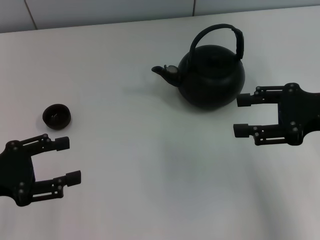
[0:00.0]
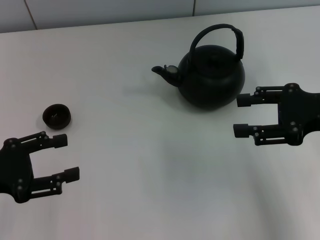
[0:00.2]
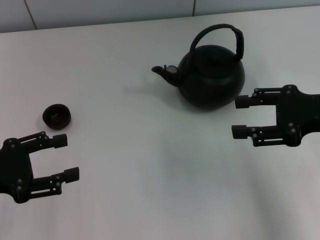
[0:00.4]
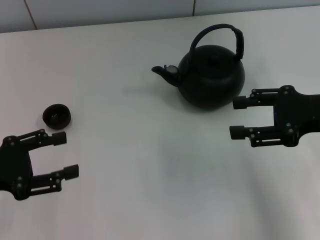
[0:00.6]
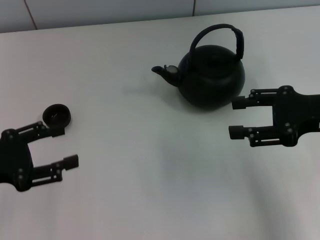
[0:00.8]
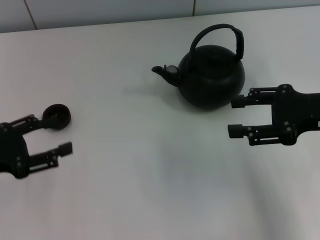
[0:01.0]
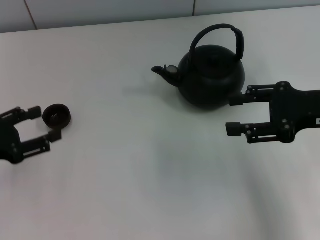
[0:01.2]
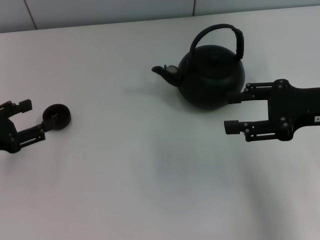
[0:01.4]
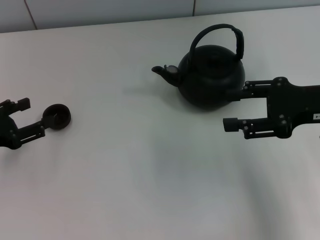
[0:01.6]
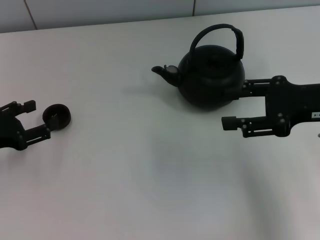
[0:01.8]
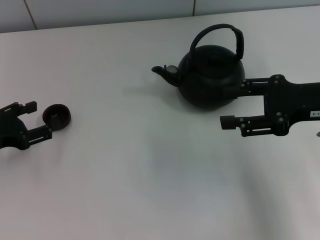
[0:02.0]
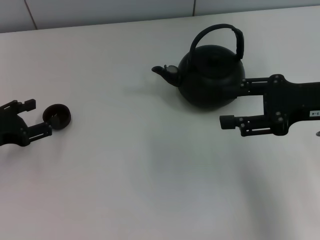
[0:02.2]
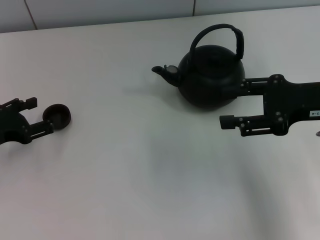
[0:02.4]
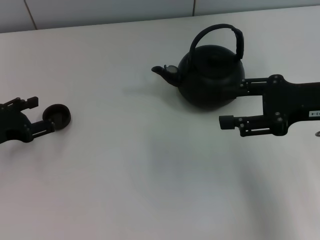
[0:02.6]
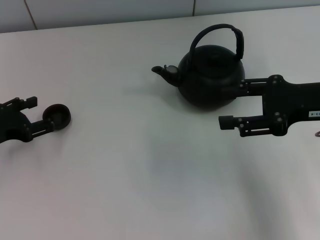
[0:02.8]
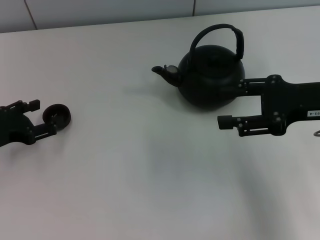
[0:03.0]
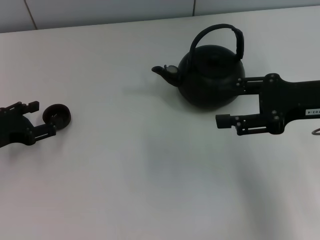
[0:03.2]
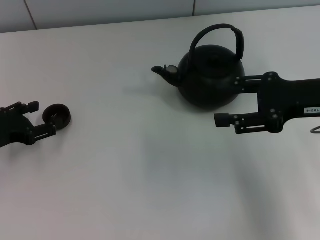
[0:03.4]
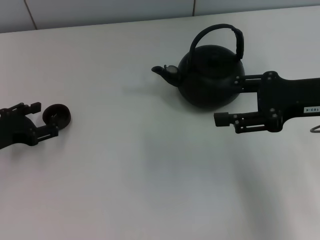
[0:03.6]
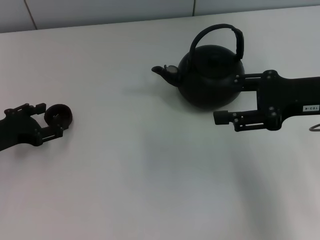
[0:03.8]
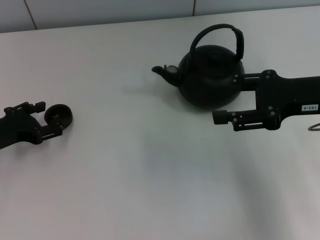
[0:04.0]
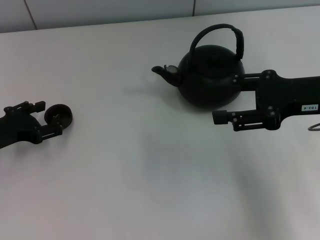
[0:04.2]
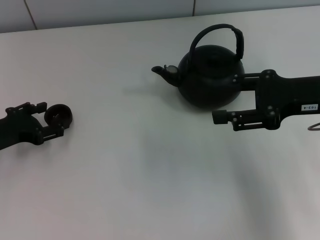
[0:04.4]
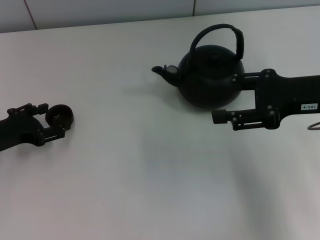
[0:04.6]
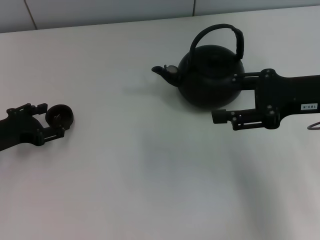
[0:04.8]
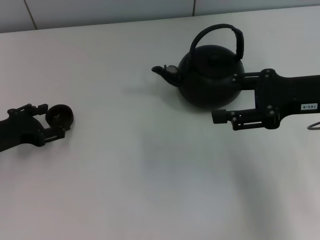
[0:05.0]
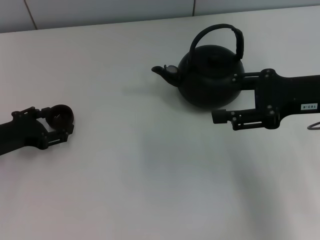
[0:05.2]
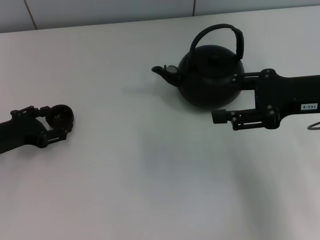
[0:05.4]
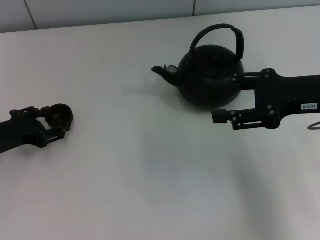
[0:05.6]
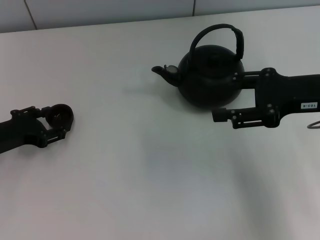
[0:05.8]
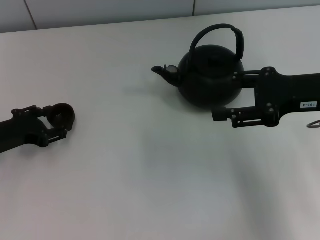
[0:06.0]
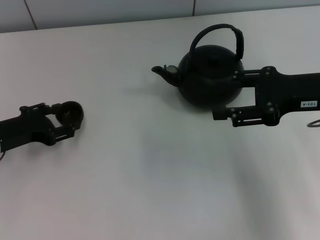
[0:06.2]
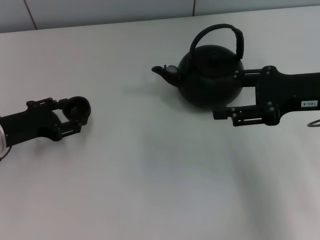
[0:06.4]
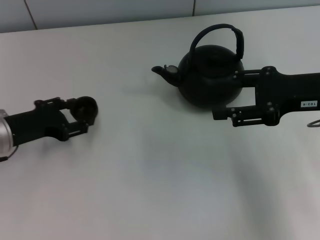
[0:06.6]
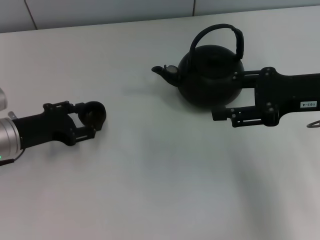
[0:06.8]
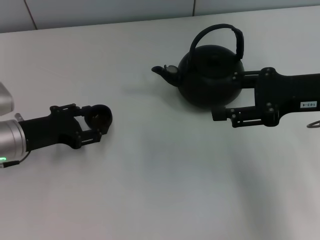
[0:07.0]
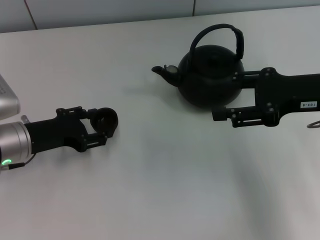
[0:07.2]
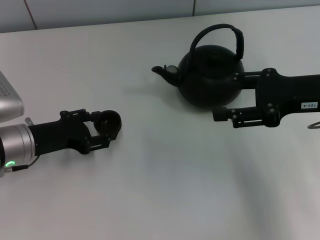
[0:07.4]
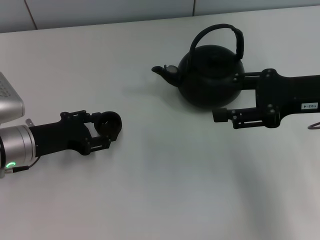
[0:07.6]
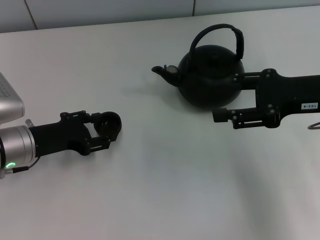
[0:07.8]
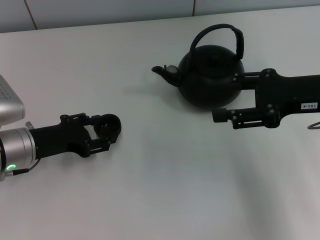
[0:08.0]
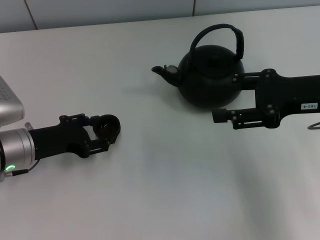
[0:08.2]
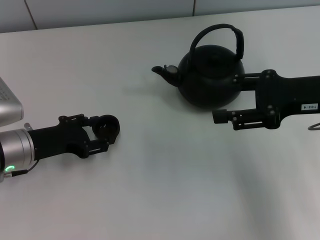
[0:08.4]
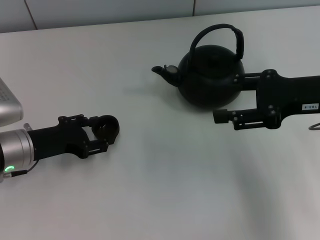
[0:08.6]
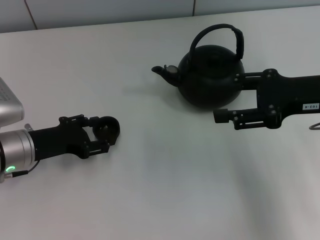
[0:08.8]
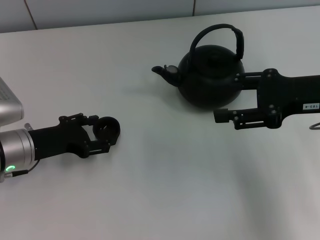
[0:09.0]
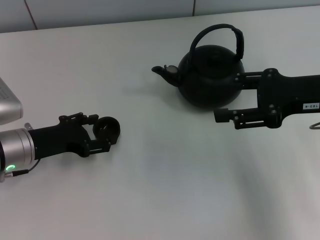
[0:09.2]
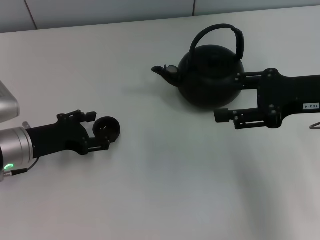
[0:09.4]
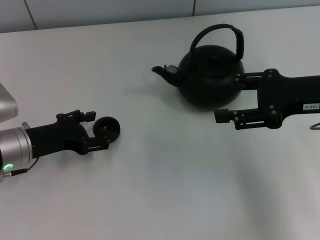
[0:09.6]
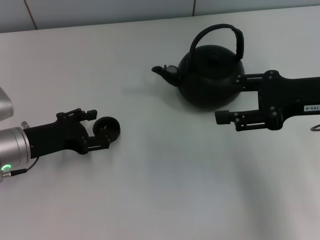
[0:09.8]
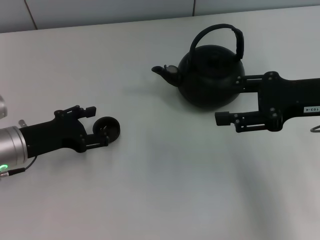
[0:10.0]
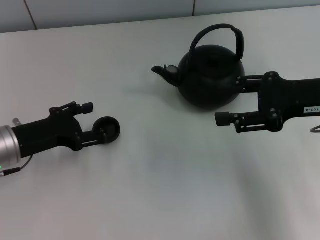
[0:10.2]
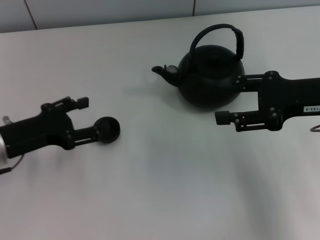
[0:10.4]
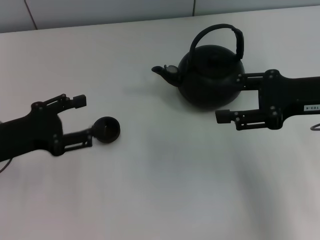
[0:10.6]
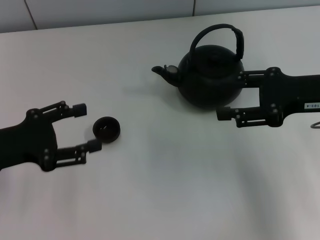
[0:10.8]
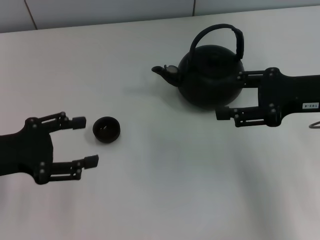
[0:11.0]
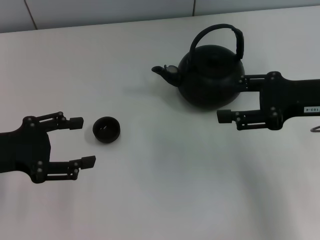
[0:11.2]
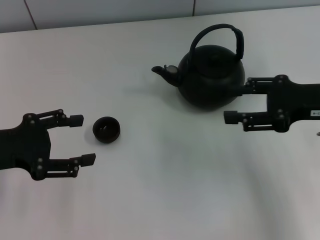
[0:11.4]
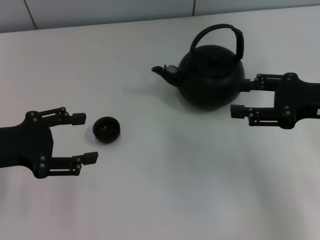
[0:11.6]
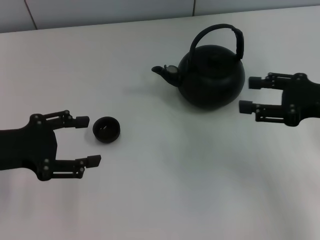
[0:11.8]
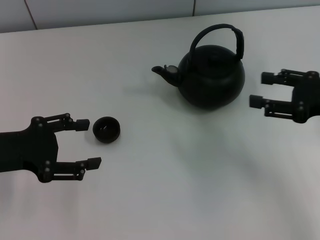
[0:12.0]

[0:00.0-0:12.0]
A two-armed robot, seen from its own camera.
Task of the whole recording: Grasp the handle of the teapot with one hand and pour tea into the teacup.
Step, 0:00.0 to 0:06.0: Pick up the teacup with the left gripper.
Step, 0:06.4 to 0:10.4: Place the teacup in the center of view with the left gripper.
0:00.0 to 0:01.6: The left gripper changes place by some 5 cm.
0:01.6 to 0:03.0: The grippers move only a little.
0:03.0 to 0:04.4: Both grippers stay put.
0:04.4 to 0:06.0: Neither gripper changes place.
0:06.0 to 0:07.6: The left gripper goes approximately 5 cm to the right.
0:07.6 to 0:09.0: The left gripper opens its fingers.
0:09.0 to 0:10.4: The grippers move only a little.
0:10.4 to 0:12.0: The right gripper ends up some 5 cm from where it was. The left gripper ends up some 5 cm from where it was.

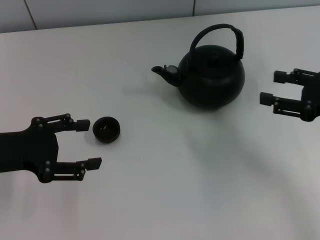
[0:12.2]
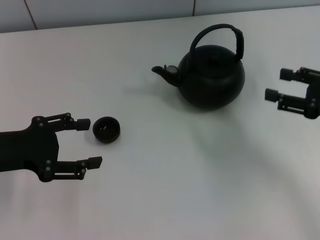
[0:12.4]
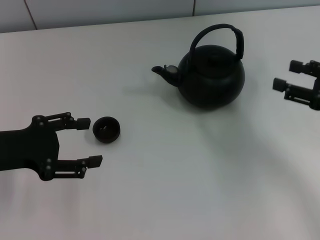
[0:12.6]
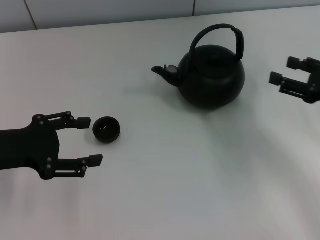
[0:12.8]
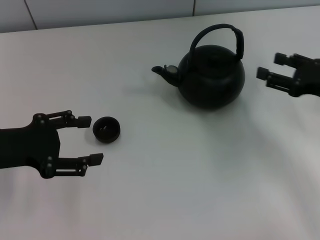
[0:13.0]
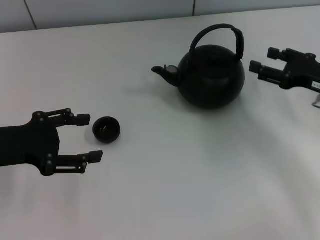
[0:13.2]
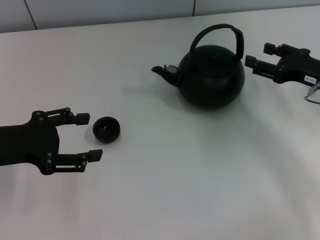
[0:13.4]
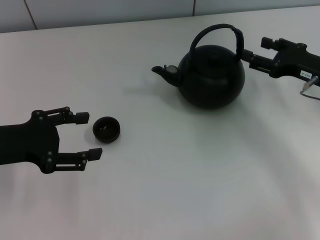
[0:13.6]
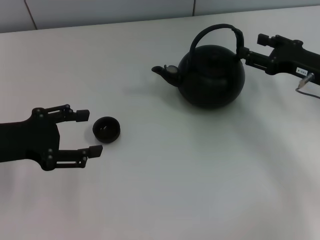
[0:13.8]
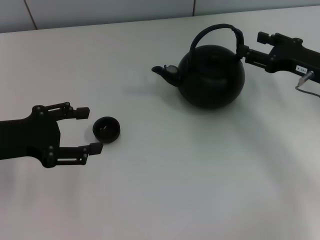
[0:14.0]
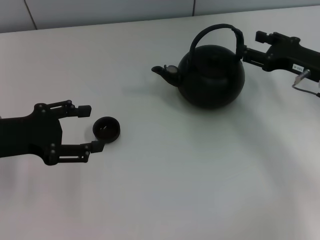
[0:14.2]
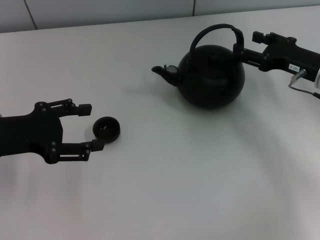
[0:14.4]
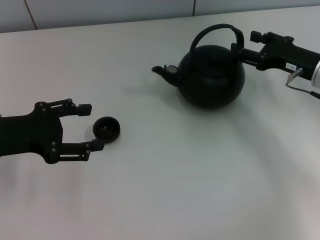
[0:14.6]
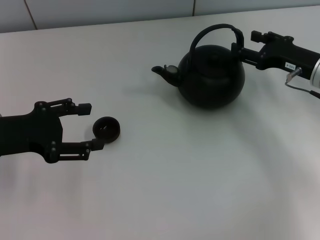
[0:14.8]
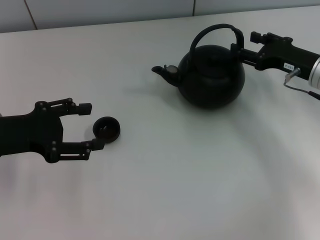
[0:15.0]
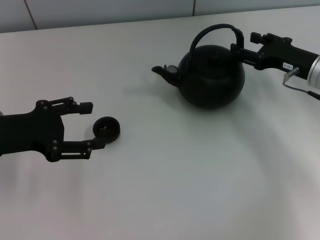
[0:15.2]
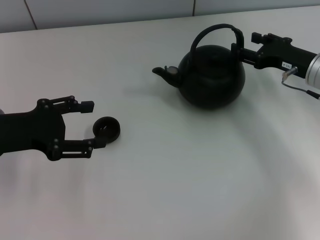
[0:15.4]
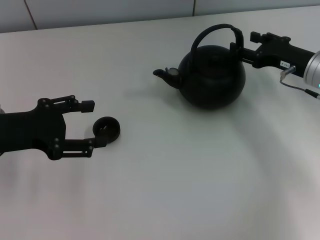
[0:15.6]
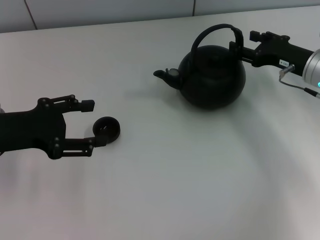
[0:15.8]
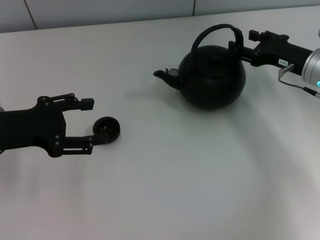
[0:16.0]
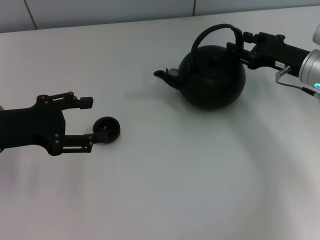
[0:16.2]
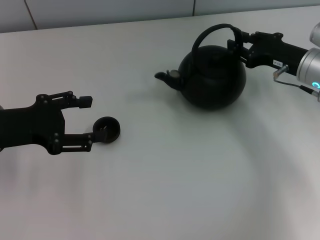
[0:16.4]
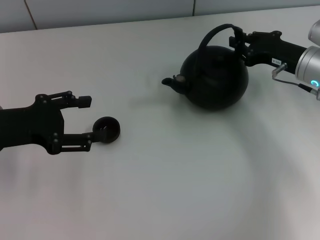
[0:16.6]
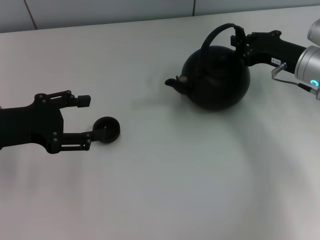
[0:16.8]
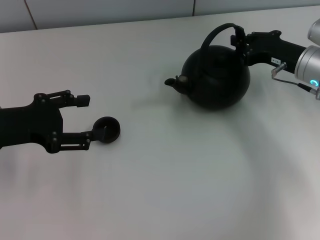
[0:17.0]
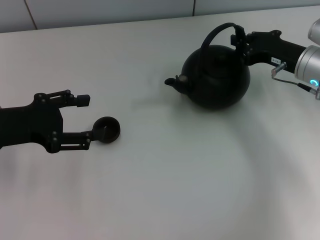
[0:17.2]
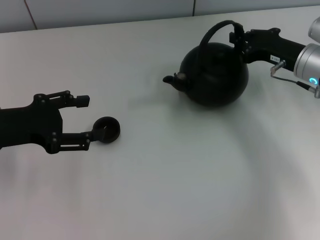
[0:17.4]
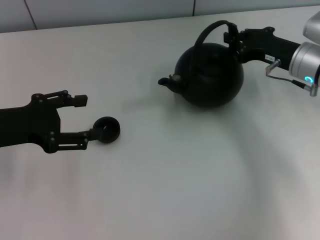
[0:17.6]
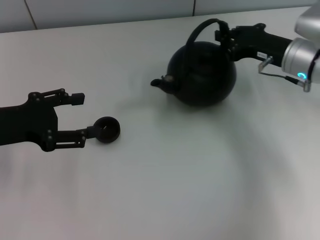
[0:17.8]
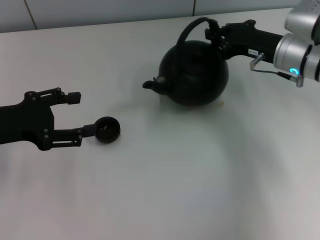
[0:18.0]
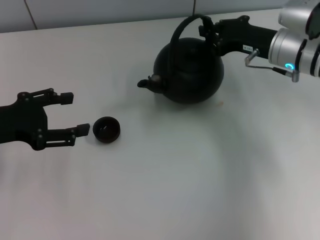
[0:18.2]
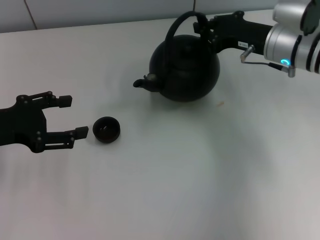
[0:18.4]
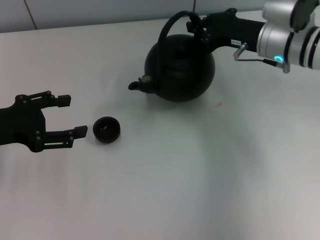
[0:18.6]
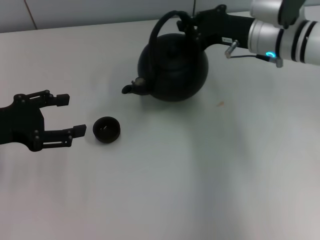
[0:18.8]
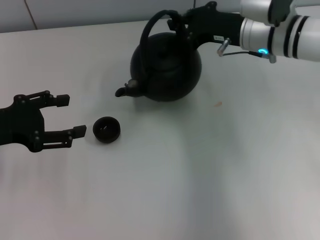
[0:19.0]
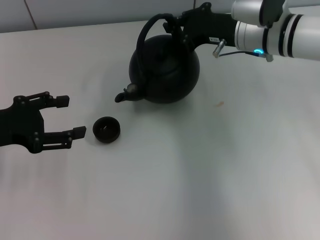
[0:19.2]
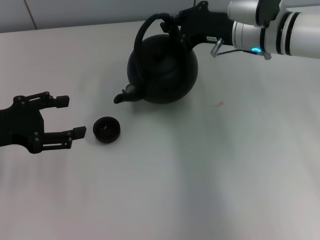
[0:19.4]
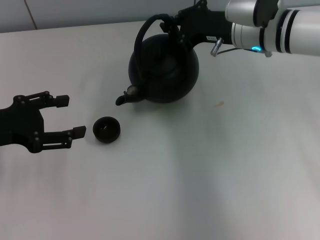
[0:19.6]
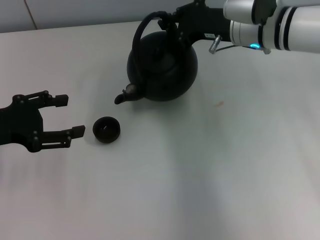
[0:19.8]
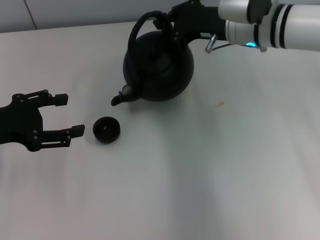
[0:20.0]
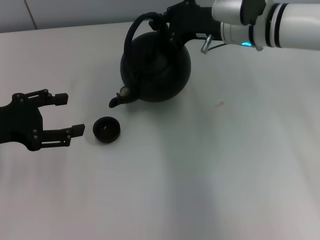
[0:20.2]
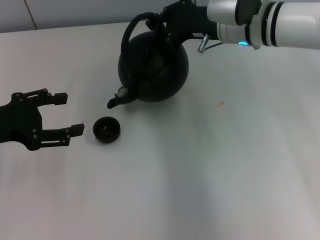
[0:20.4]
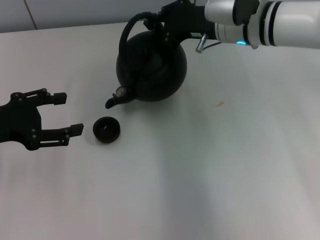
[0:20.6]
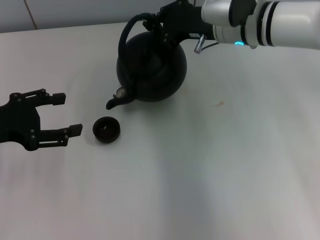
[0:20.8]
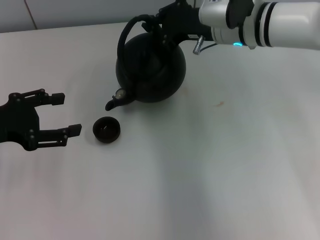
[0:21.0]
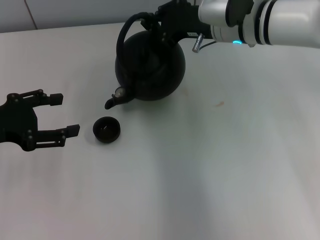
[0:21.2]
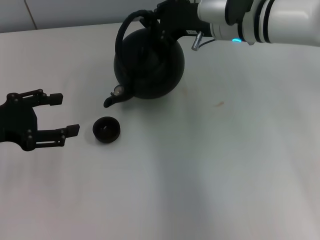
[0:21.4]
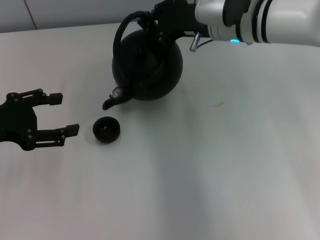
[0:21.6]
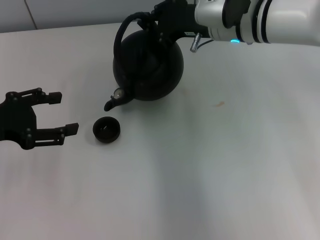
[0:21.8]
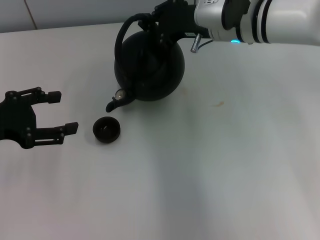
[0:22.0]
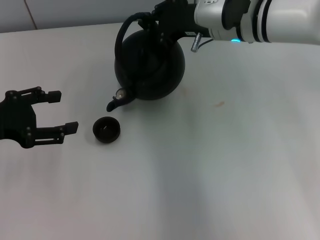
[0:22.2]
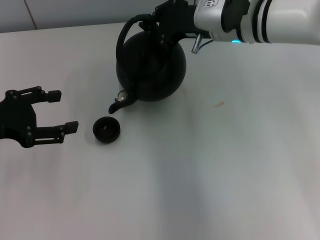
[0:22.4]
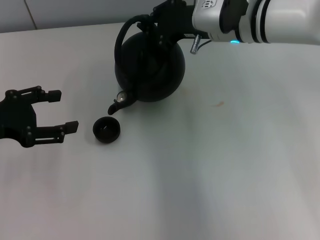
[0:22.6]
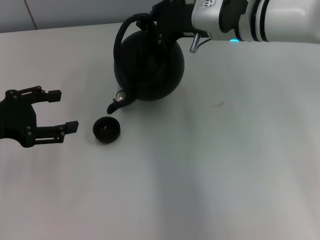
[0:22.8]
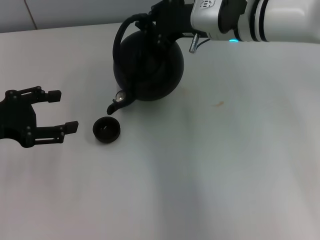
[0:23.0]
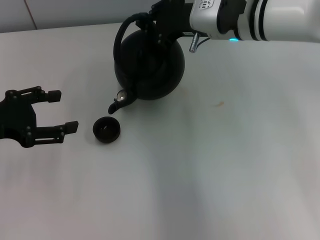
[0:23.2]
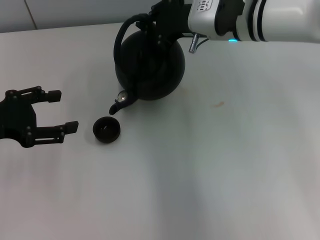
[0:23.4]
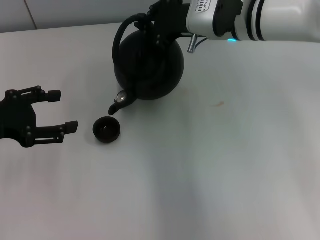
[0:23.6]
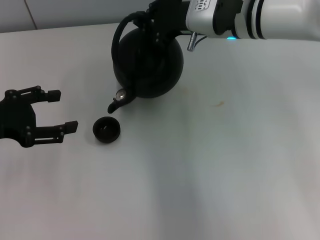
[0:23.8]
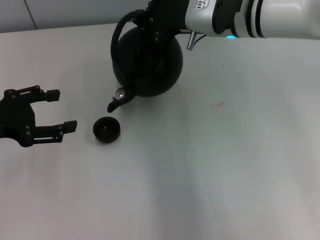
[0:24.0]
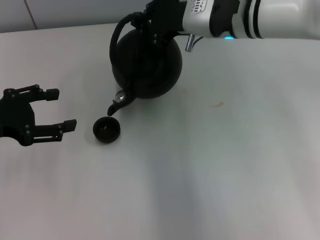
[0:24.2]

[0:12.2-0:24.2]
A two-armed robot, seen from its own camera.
Task of the whole recording: Grasp the handle of the teapot with one hand and pour tea into the teacup.
Step, 0:12.2 to 0:18.2: Pick up the teapot with the right gripper.
0:12.2 to 0:13.8: The right gripper is displaced forward by some 5 cm.
0:13.8 to 0:15.2: The grippers stay close to where they were, moving slightly.
0:15.2 to 0:16.6: The right gripper closes up.
0:16.6 to 0:18.2: The right gripper moves approximately 5 cm, and closes.
0:18.2 to 0:19.8: The right gripper goes some 5 cm to the left.
0:19.8 to 0:24.2: The grippers stay close to where they were, moving slightly.
